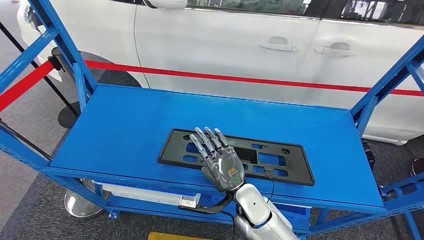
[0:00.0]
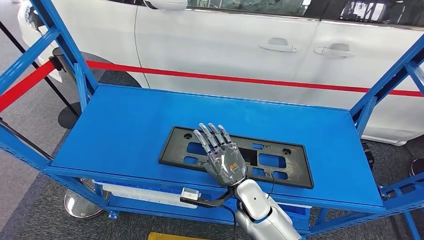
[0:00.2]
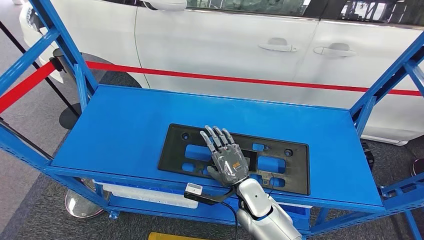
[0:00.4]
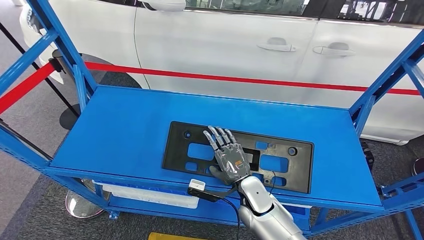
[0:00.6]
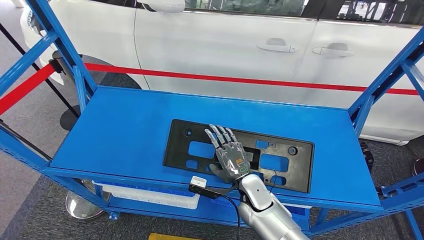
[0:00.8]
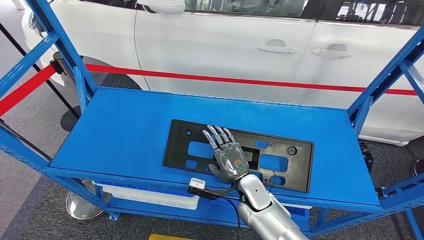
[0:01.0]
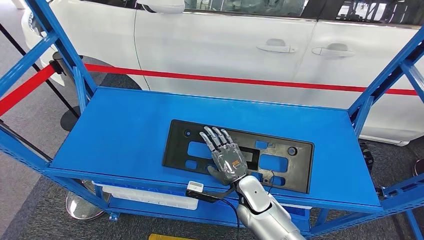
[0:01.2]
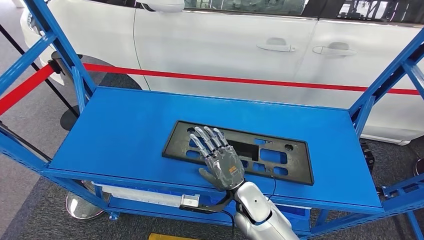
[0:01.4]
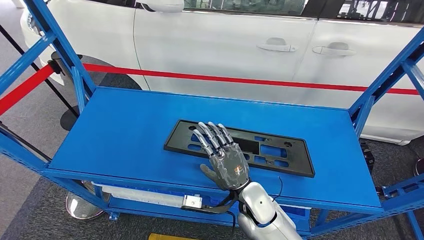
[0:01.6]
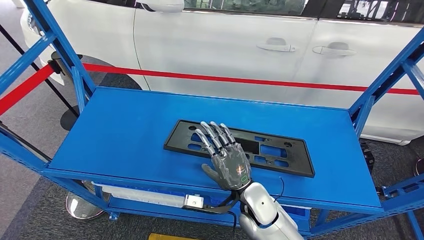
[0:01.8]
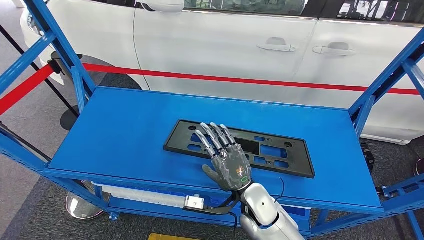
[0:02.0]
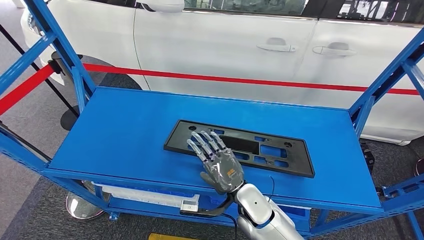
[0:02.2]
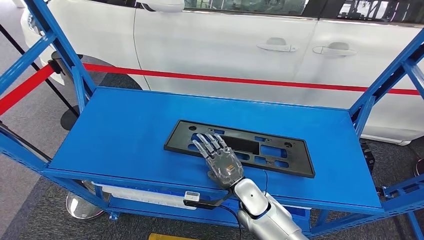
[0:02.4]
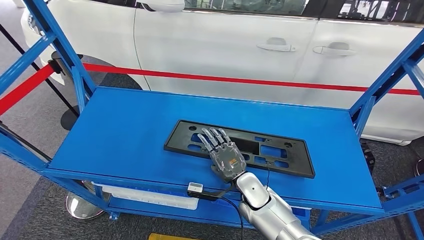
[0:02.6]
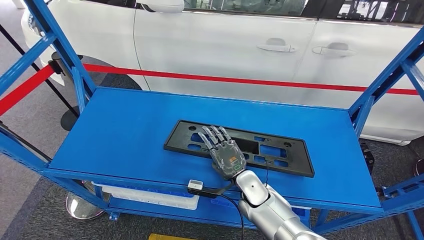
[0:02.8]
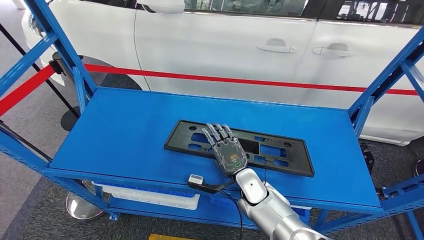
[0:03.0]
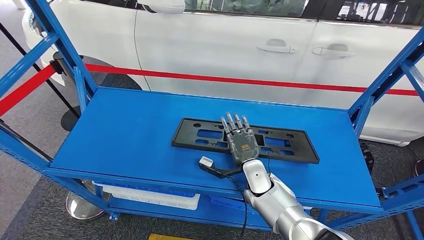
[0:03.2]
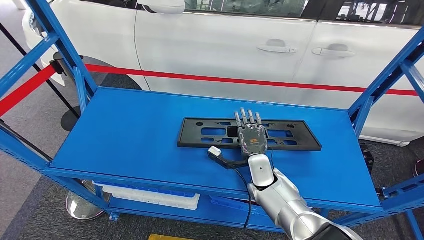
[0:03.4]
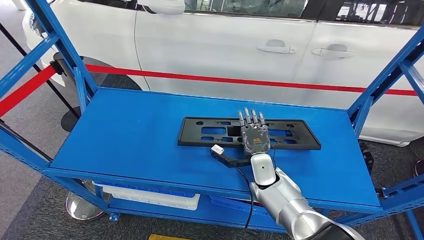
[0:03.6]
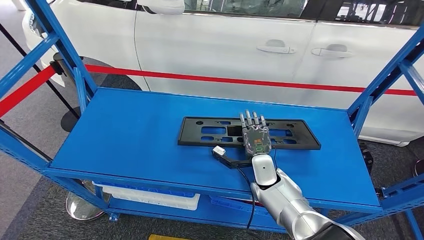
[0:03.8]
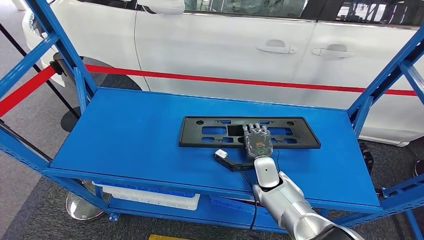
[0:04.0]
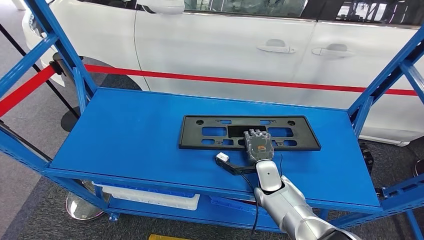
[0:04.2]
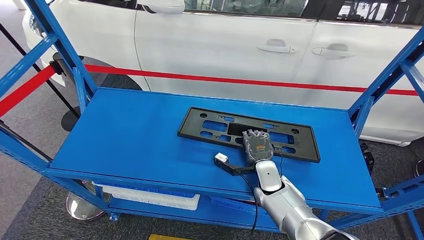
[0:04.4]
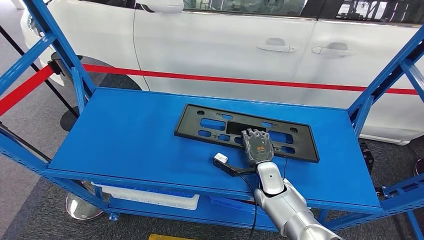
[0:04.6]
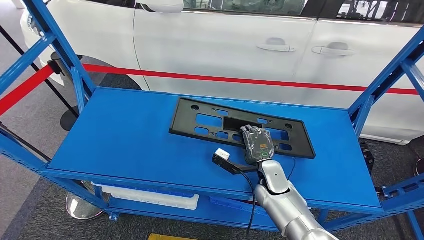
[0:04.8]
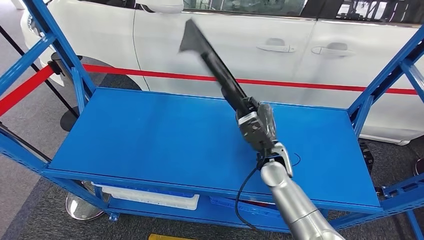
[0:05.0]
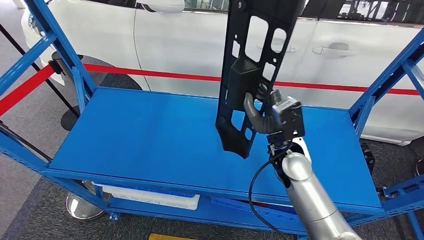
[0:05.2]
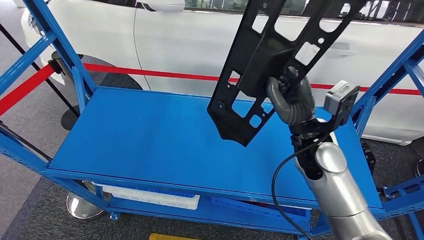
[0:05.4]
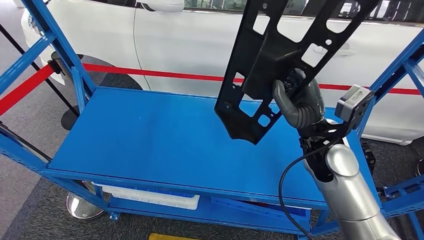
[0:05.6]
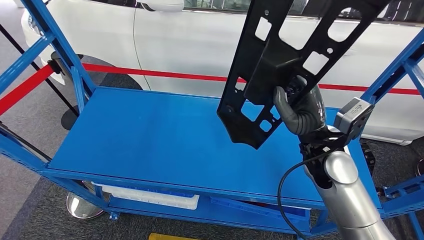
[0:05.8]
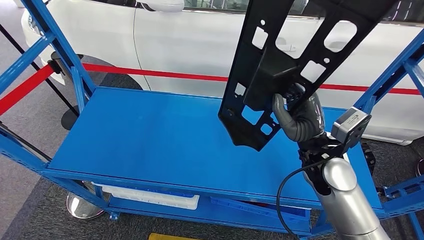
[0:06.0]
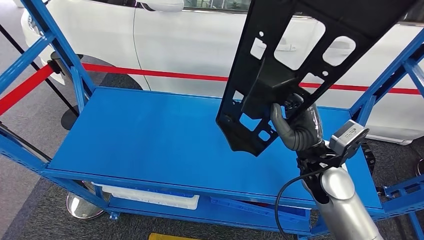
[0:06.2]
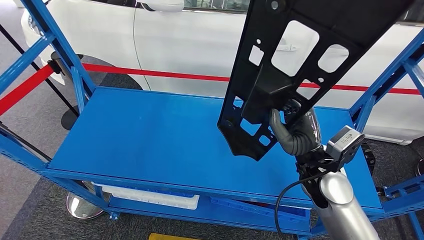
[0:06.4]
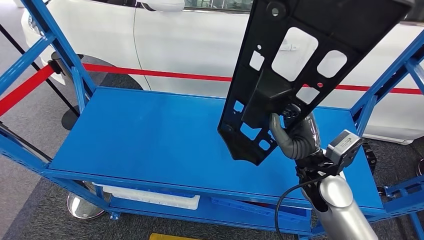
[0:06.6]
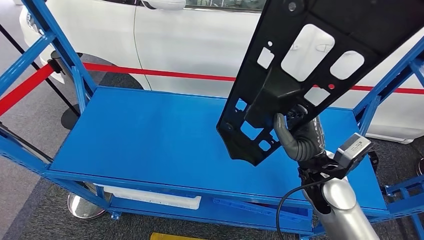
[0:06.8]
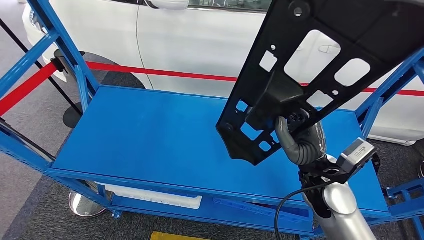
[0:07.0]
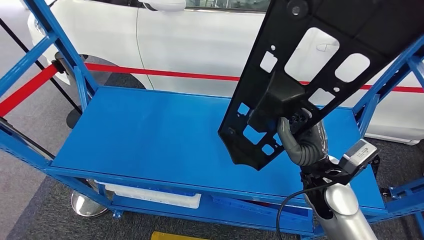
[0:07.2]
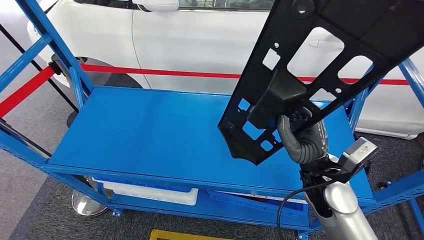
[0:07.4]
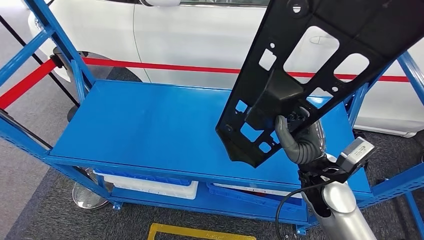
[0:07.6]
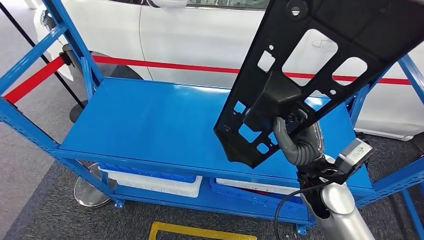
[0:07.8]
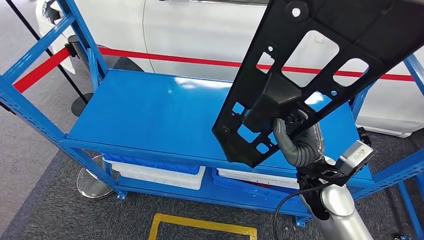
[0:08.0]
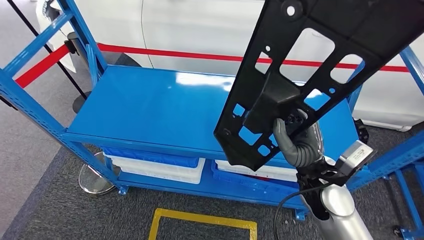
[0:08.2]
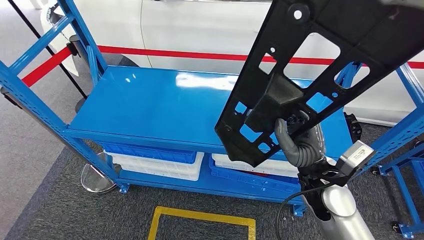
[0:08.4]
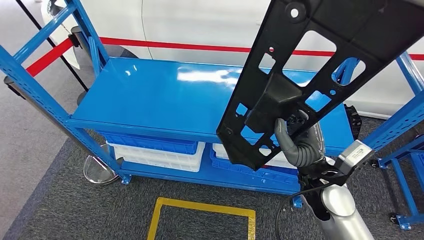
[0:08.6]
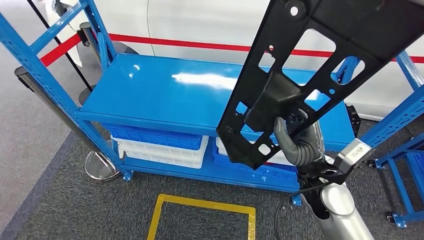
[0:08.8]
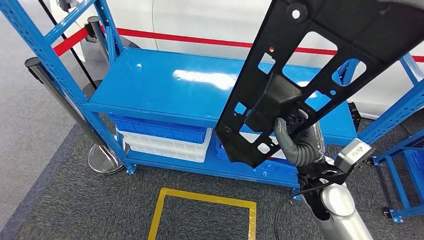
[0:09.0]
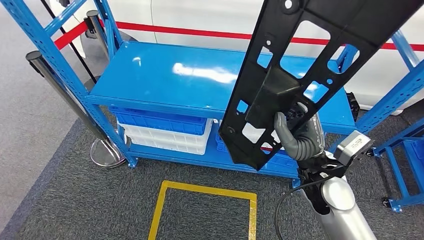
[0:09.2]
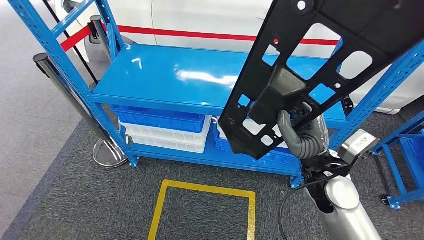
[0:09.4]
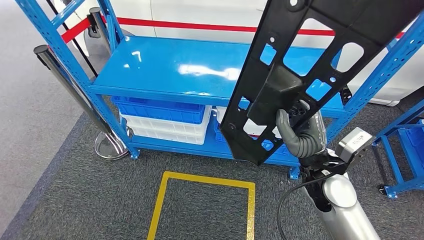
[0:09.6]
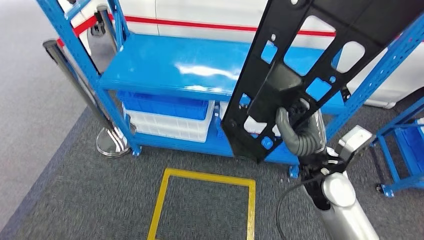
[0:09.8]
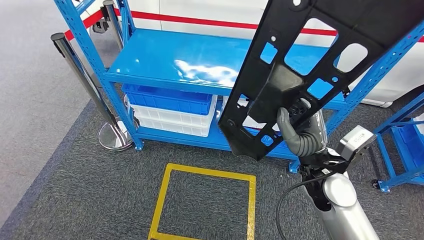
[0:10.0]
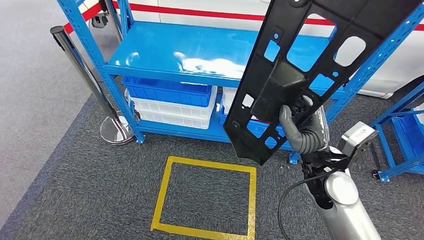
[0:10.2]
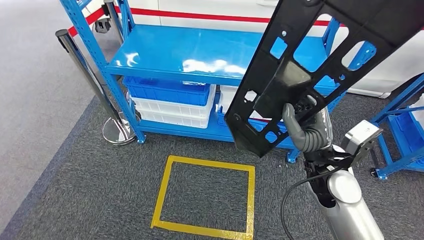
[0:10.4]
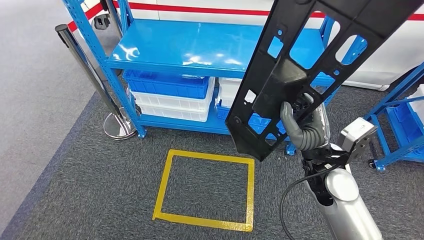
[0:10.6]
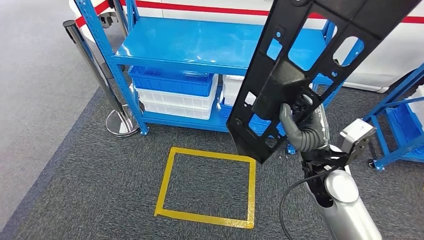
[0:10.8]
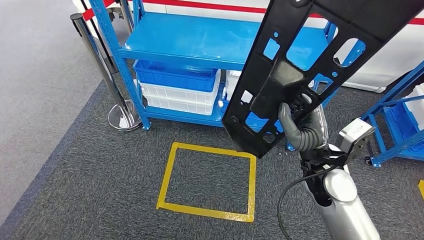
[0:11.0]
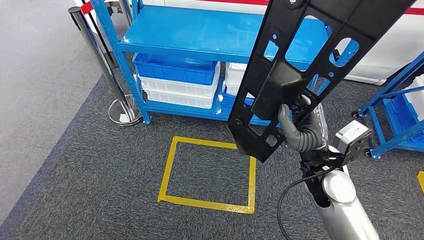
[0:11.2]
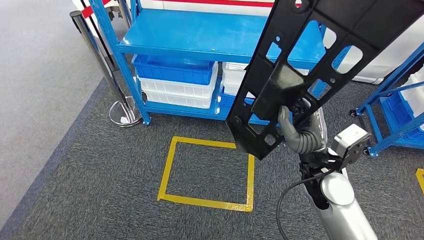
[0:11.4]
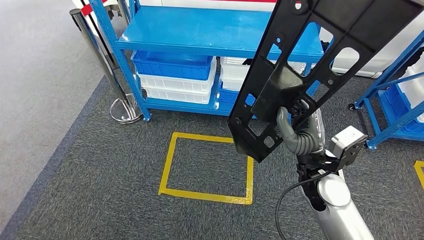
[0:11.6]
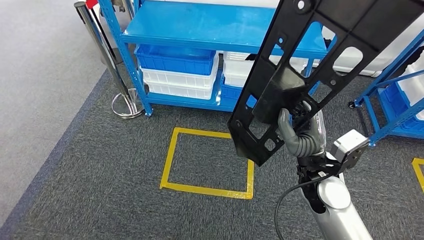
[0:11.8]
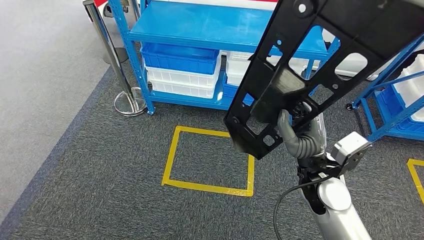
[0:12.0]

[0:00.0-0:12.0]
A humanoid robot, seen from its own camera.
Step, 0:00.0 to 0:10.2: Pick up the large parts from the shelf.
0:01.6 to 0:03.0: The right hand moves forward and downward, approximately 10 cm.
0:03.0 to 0:04.4: The right hand shifts by approximately 5 cm.

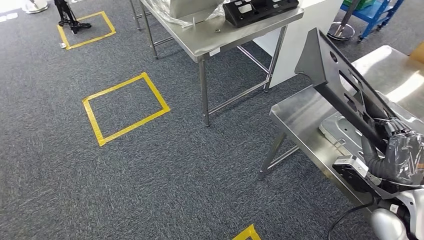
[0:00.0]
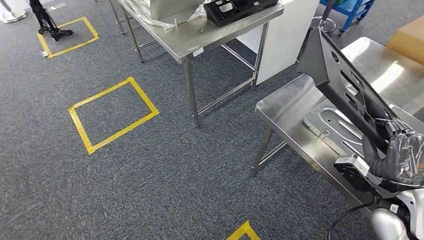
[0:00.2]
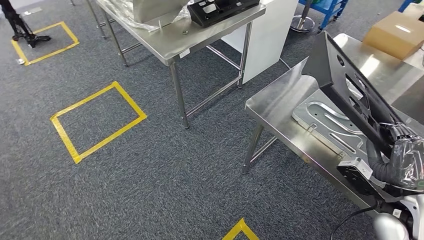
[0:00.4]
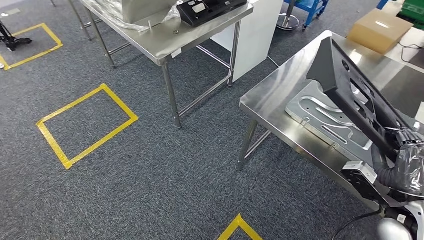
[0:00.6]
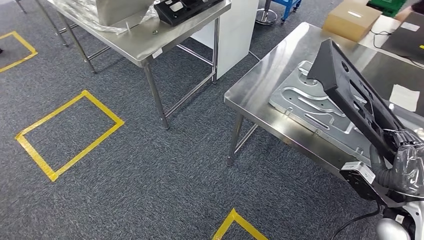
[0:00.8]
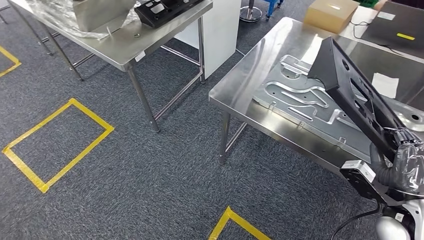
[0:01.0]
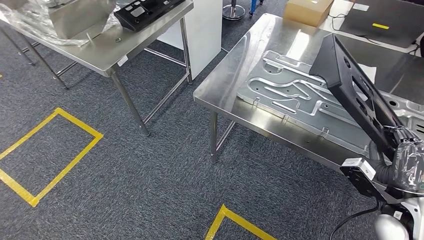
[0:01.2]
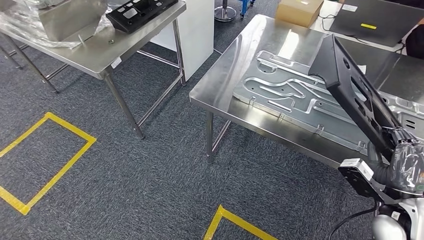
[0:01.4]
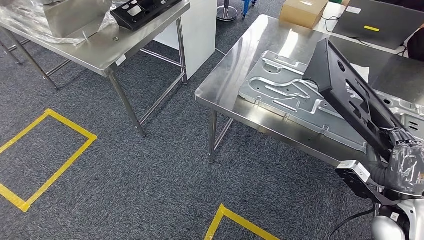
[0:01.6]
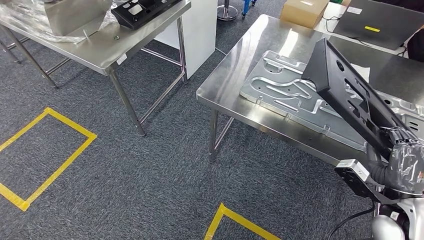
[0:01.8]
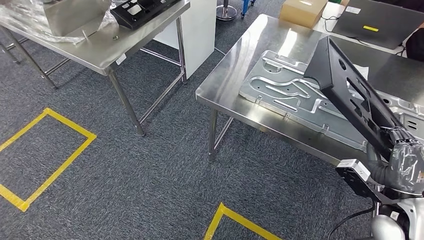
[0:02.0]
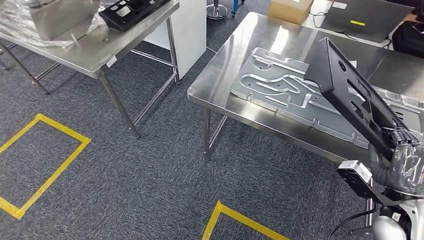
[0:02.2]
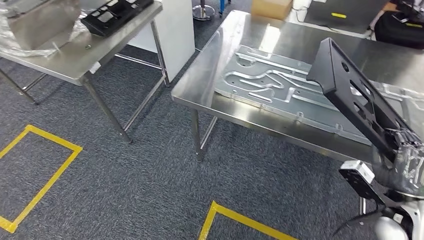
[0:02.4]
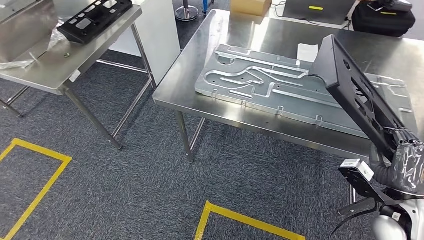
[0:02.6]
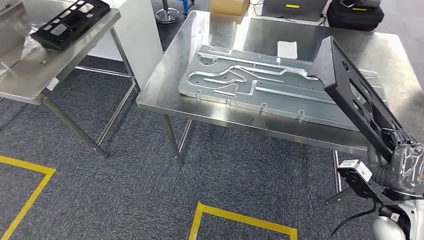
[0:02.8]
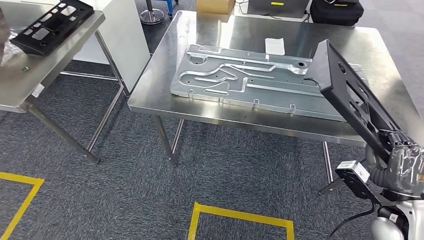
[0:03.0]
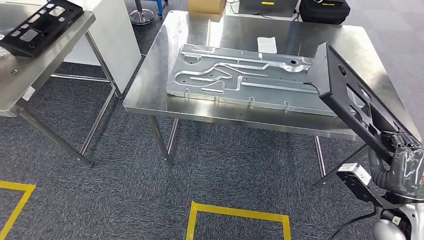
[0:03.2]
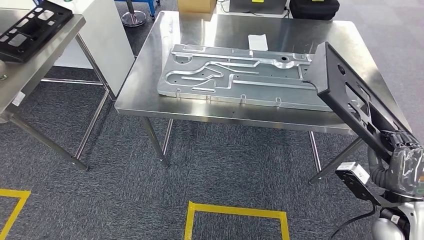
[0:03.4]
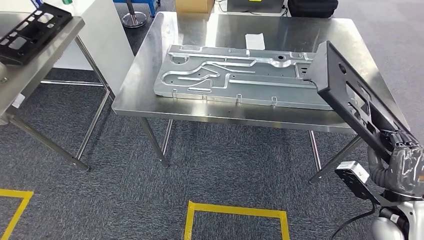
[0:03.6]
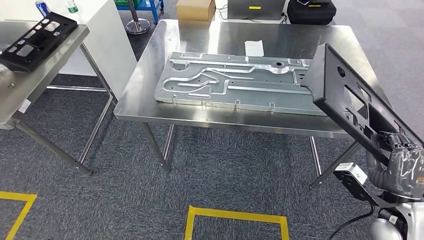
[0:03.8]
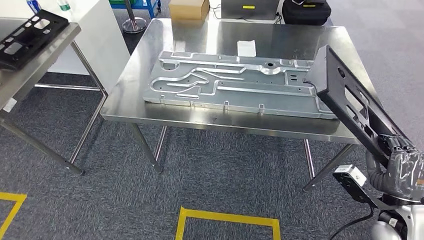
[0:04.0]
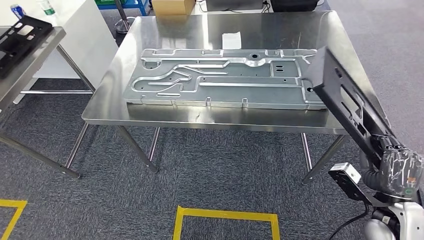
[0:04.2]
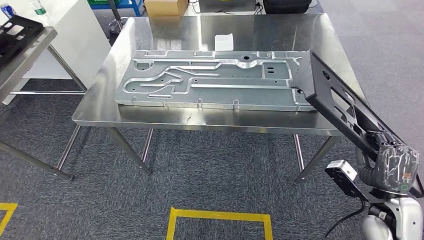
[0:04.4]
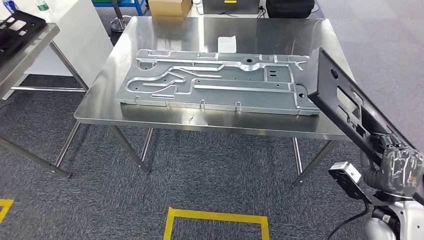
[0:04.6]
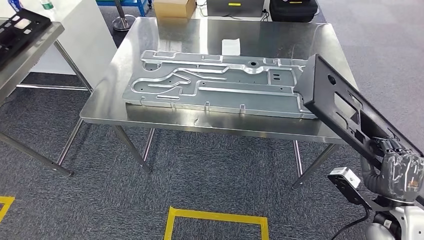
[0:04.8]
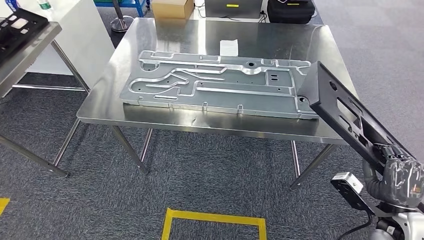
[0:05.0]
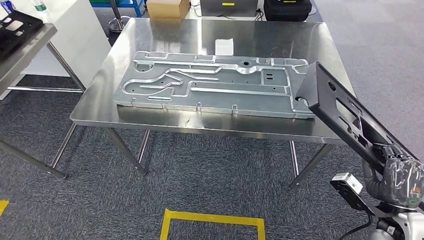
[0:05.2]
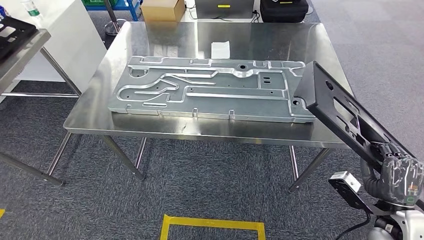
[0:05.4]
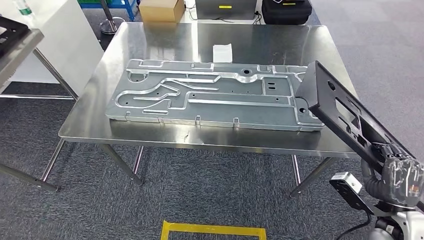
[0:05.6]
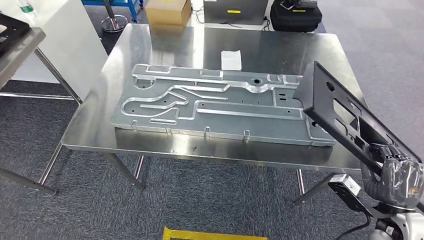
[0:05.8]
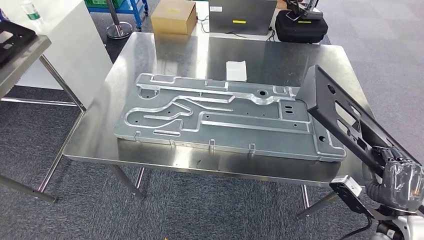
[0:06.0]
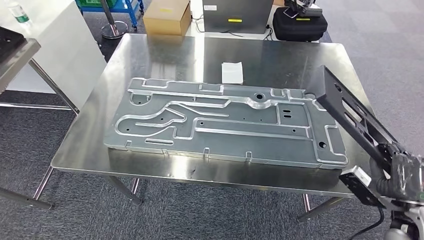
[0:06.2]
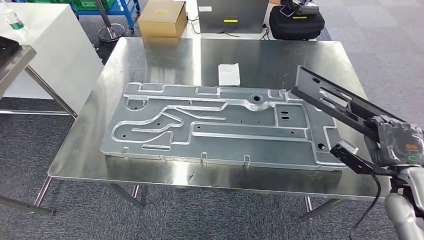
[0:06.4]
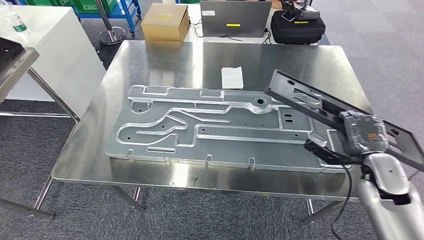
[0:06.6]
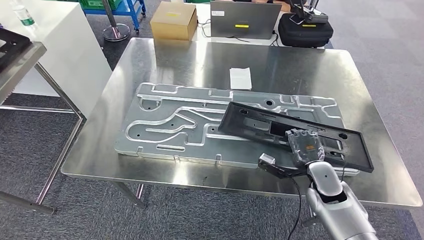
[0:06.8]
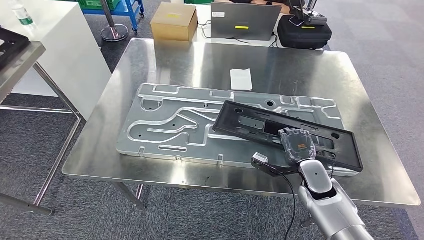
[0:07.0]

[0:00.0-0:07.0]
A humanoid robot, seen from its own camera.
Step, 0:00.0 to 0:05.0: Move the large parts to the workbench.
